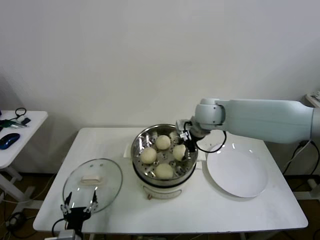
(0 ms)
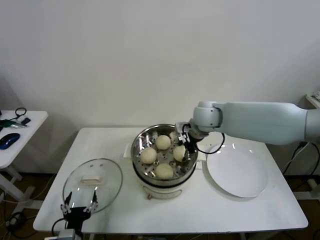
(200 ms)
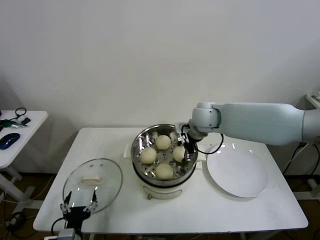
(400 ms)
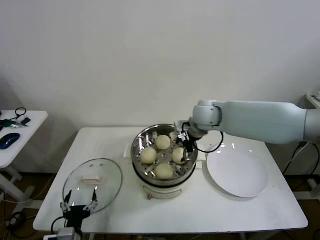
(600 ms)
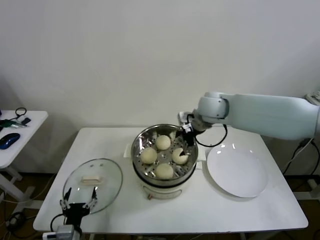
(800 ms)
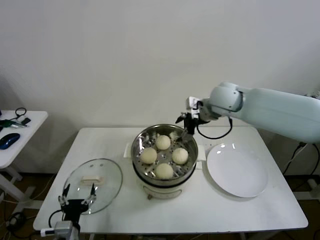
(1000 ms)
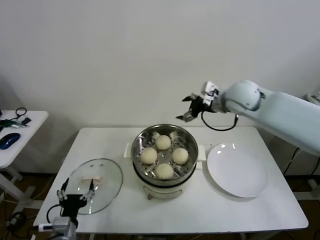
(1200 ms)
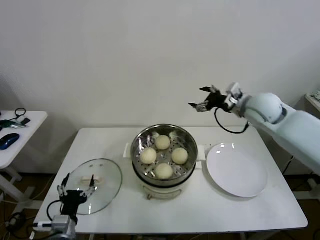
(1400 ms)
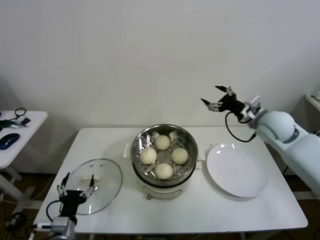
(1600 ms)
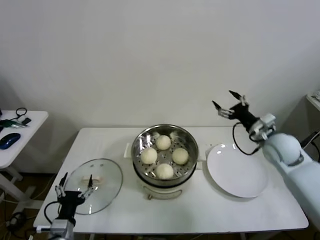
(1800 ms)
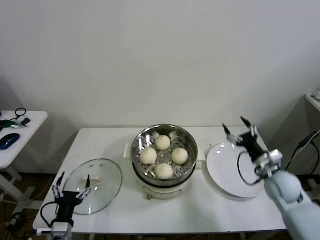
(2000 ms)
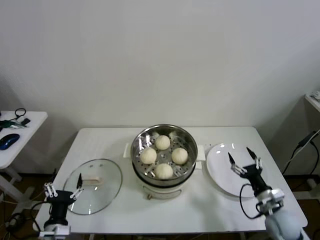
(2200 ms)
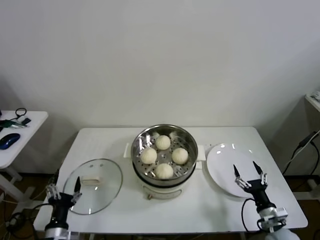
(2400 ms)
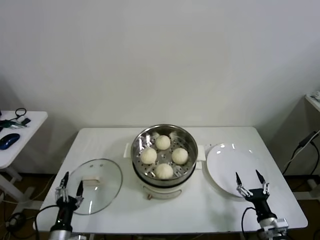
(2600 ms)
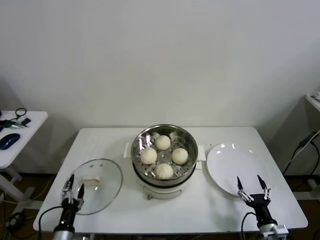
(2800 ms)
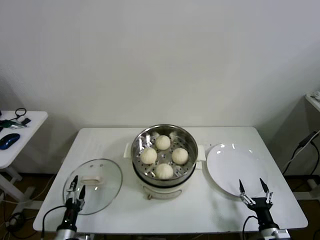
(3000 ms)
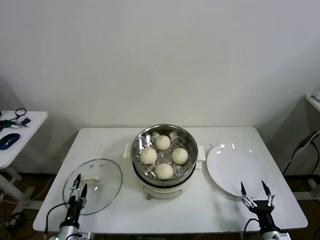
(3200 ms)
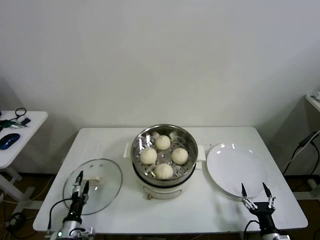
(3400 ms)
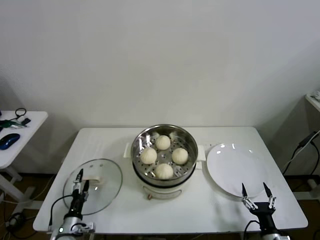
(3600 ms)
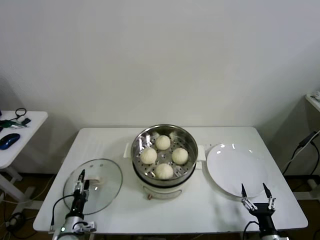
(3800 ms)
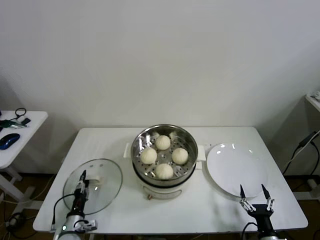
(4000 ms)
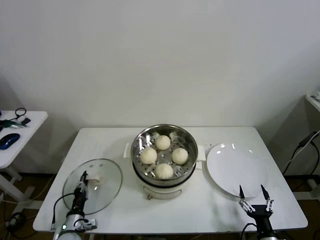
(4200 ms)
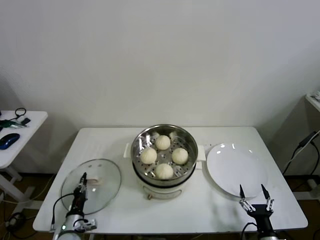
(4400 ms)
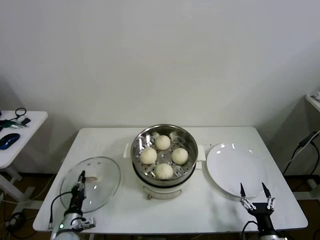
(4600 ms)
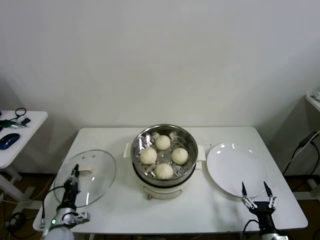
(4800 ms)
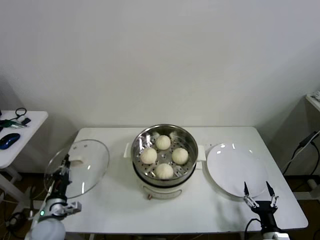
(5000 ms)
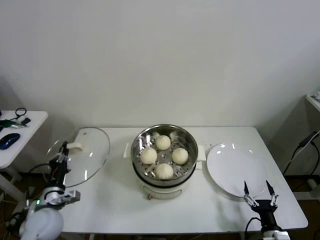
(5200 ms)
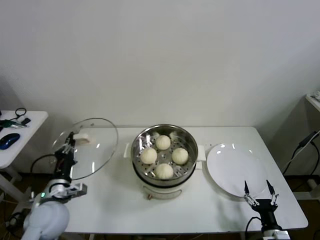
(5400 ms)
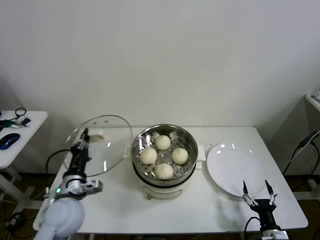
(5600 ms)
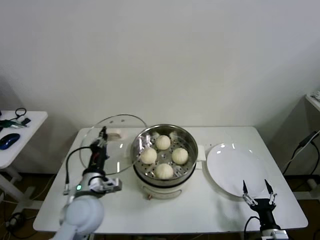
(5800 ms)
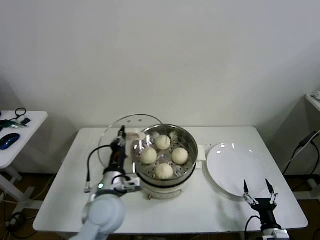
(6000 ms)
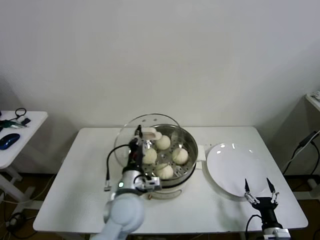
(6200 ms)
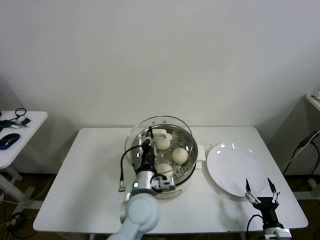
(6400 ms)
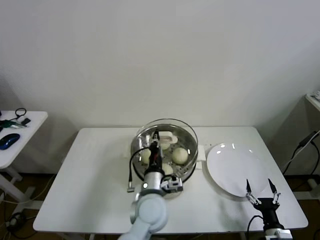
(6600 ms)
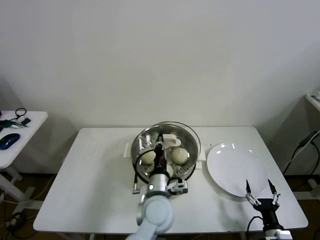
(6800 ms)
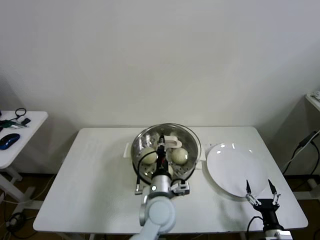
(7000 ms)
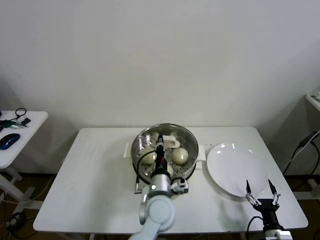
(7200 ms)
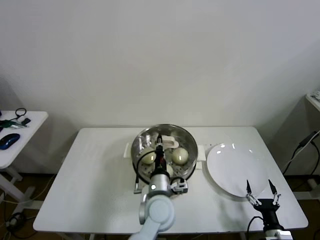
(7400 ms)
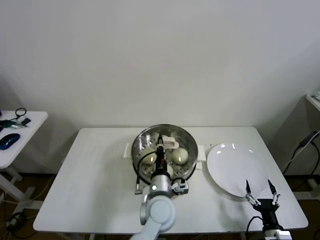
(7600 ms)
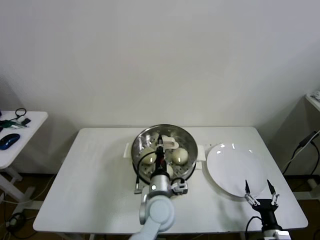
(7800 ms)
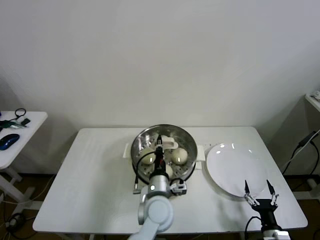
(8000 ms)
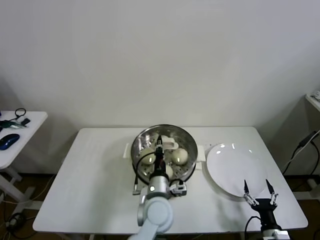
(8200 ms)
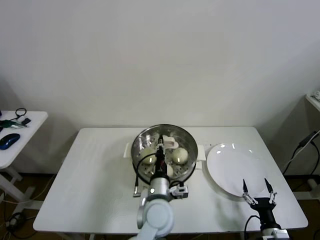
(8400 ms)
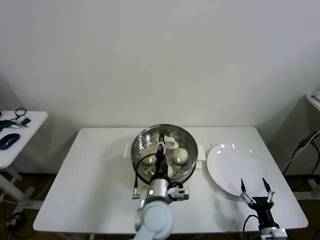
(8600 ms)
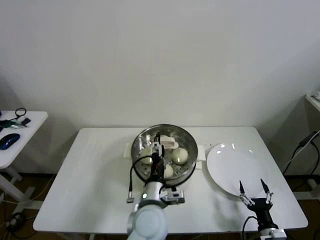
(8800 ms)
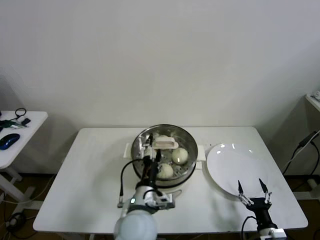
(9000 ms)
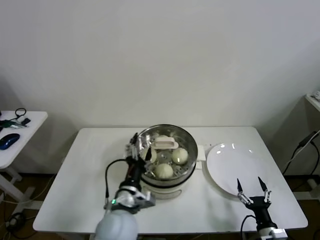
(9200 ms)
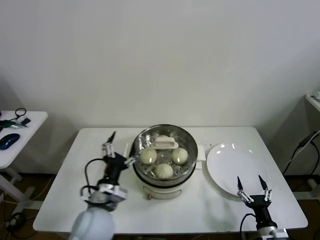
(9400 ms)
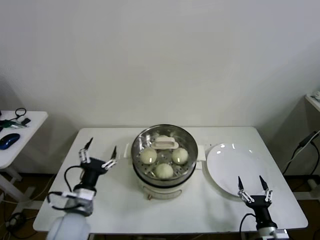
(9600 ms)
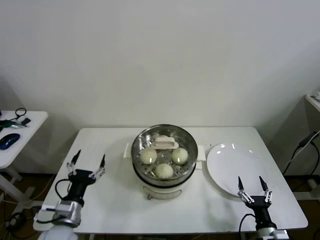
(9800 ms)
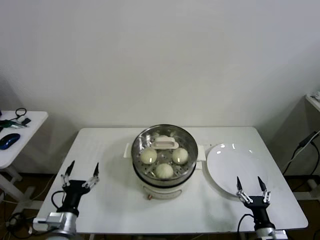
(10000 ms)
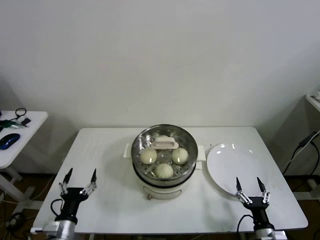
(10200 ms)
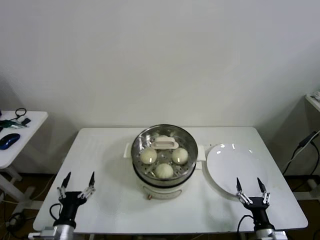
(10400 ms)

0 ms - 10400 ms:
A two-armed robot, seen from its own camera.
Step, 600 ms - 4400 ms: Grasp the pot lid with left gripper.
Step, 4600 ms - 8200 ms: Place the pot lid on the steamer with left gripper.
0 ms - 1400 ms: The left gripper shifts by about 5 cm. The right gripper is displaced to the right by roughly 15 cm, and opens its fingers.
1400 ms - 3000 ms: The left gripper moves downward, roughly 10 cm. The right gripper travels downward and backward by approximately 50 cm.
3000 ms - 4400 ms: The left gripper is displaced forward by roughly 5 cm, and closes up.
4400 ms - 6000 ms: The left gripper goes roughly 30 cm upward and to the right.
6000 ms - 7400 ms: The left gripper is displaced to the right by roughly 15 cm.
7400 ms - 9000 ms: The left gripper shifts by some 5 cm, and opens up.
9000 ms - 10400 ms: The left gripper moves to the left, about 25 cm.
